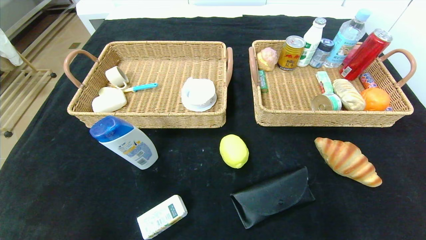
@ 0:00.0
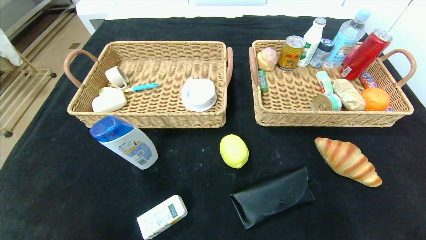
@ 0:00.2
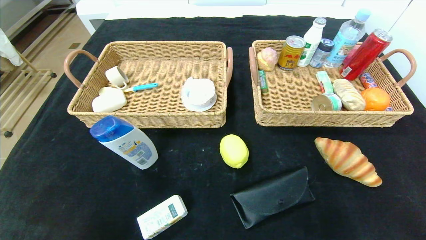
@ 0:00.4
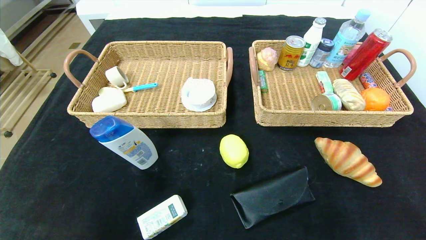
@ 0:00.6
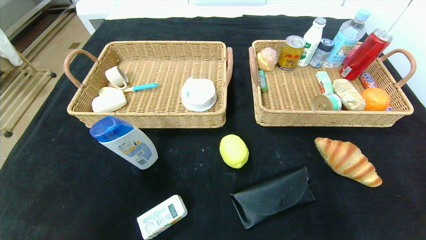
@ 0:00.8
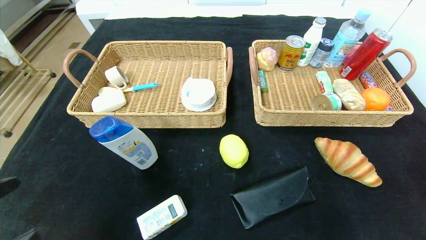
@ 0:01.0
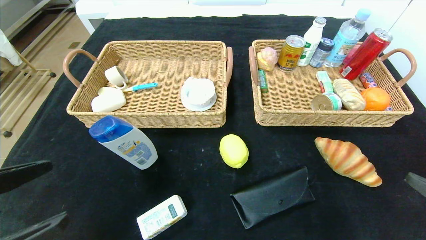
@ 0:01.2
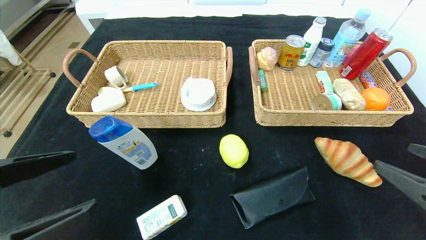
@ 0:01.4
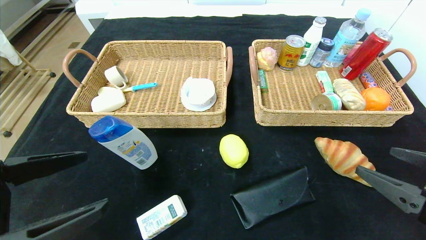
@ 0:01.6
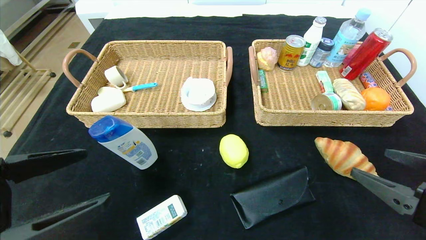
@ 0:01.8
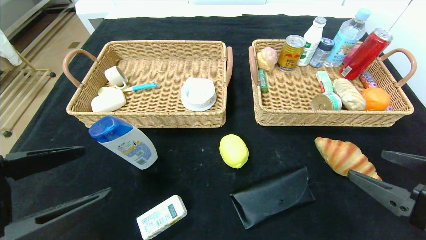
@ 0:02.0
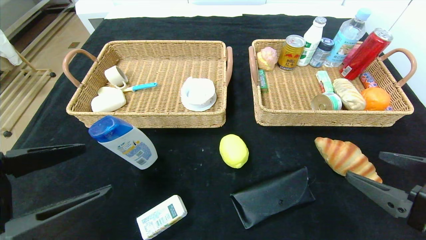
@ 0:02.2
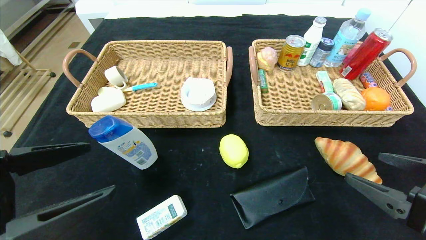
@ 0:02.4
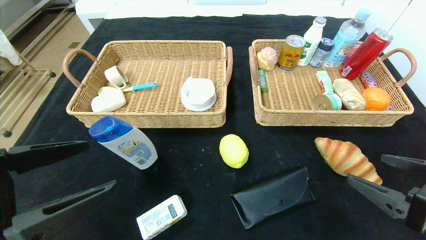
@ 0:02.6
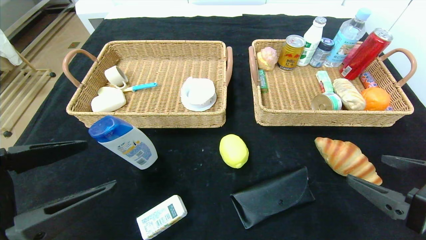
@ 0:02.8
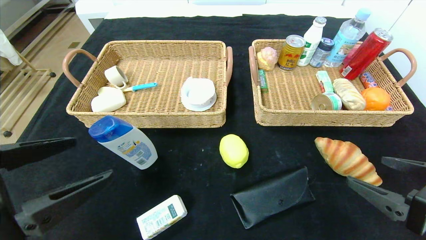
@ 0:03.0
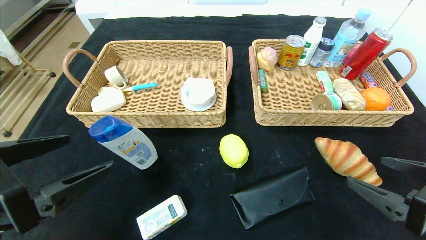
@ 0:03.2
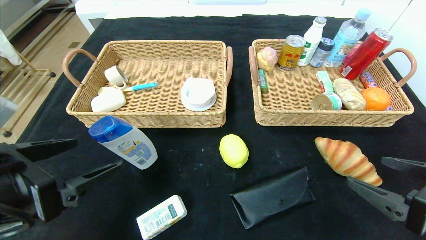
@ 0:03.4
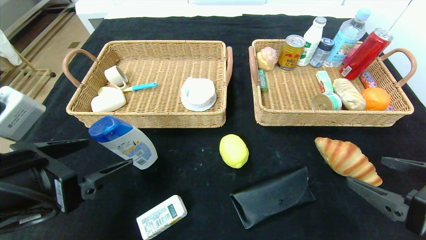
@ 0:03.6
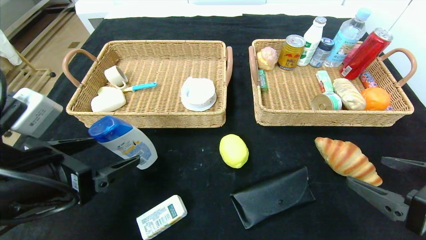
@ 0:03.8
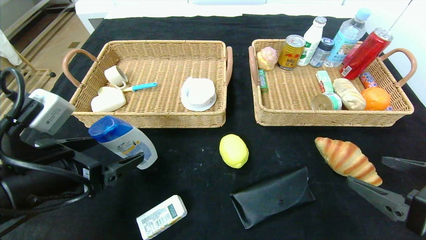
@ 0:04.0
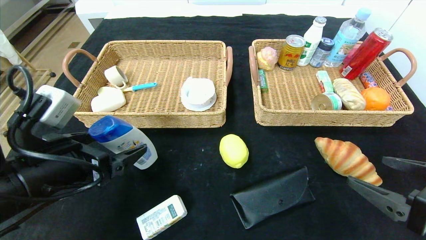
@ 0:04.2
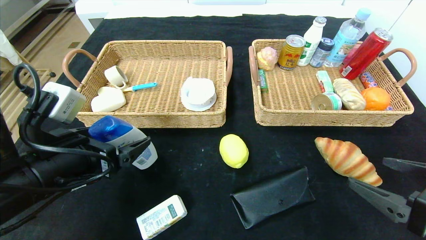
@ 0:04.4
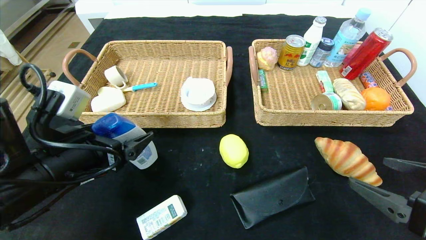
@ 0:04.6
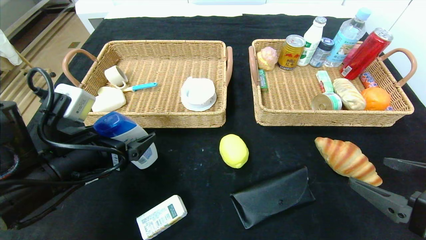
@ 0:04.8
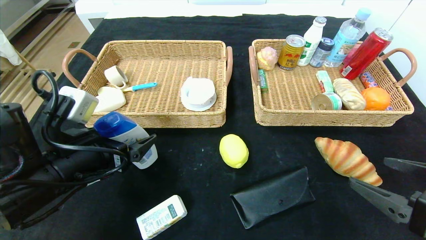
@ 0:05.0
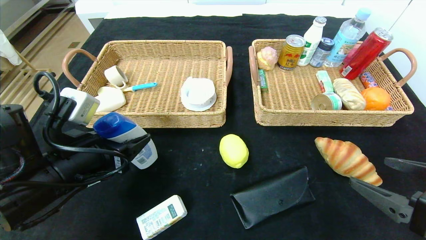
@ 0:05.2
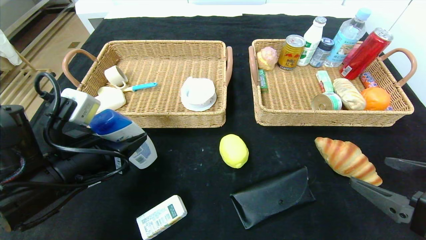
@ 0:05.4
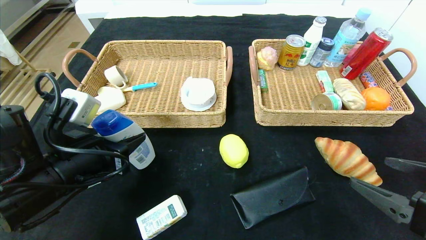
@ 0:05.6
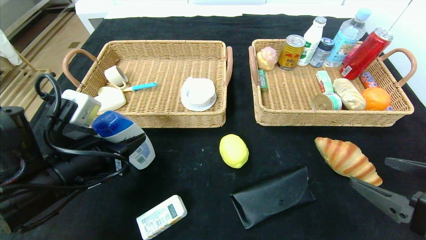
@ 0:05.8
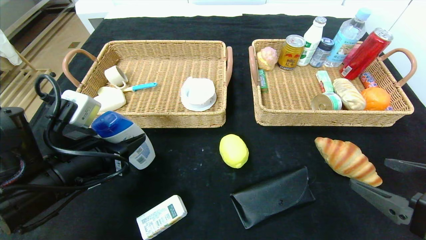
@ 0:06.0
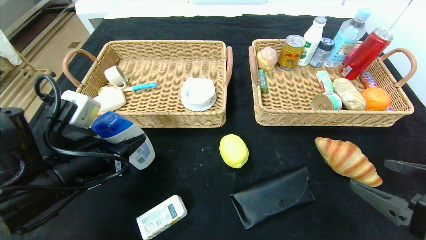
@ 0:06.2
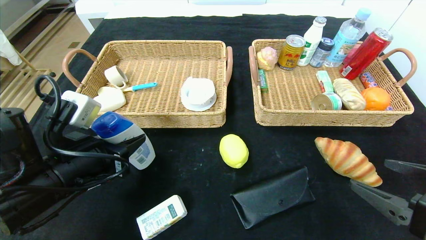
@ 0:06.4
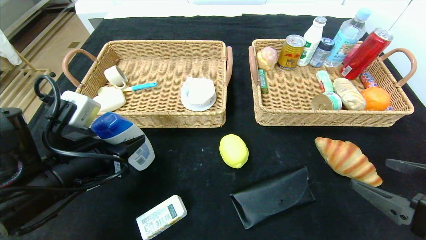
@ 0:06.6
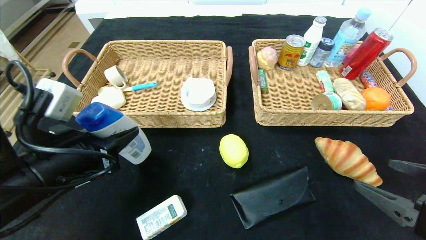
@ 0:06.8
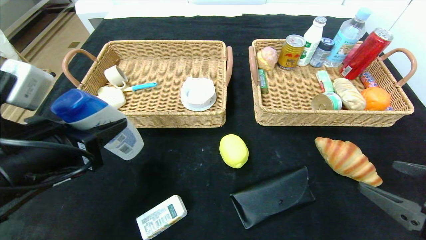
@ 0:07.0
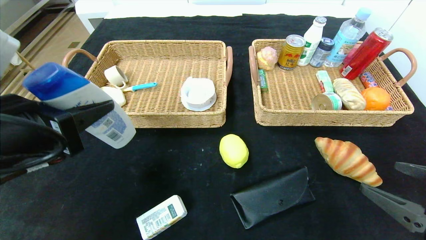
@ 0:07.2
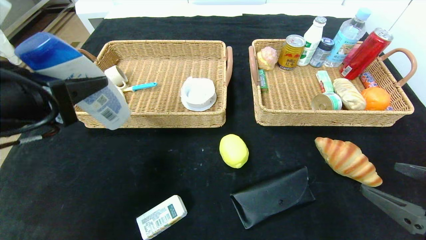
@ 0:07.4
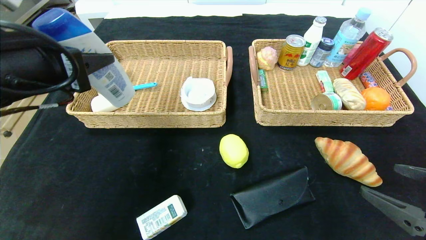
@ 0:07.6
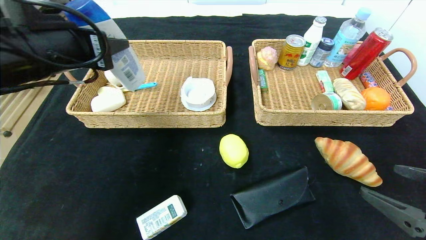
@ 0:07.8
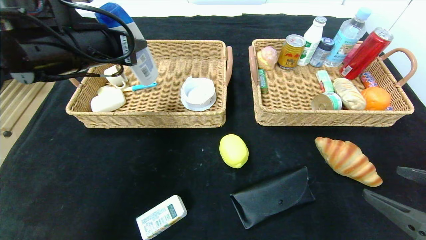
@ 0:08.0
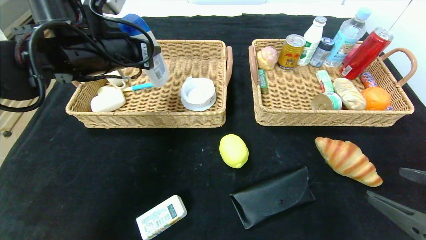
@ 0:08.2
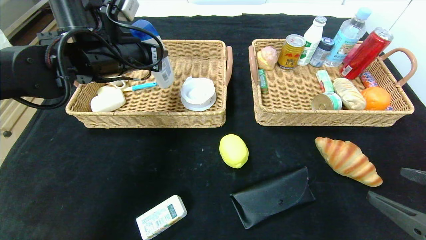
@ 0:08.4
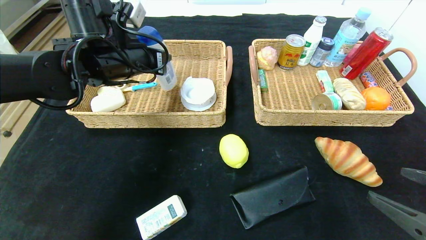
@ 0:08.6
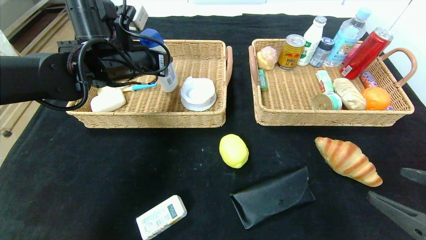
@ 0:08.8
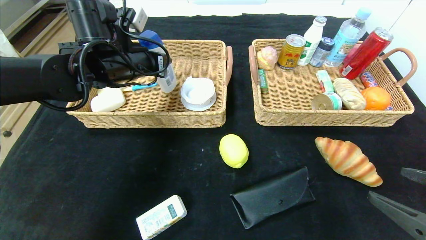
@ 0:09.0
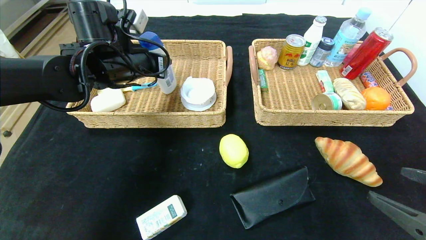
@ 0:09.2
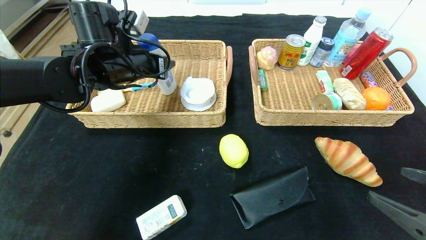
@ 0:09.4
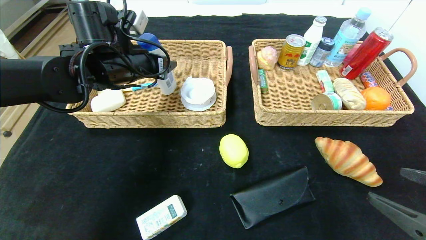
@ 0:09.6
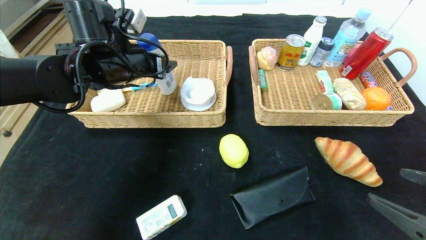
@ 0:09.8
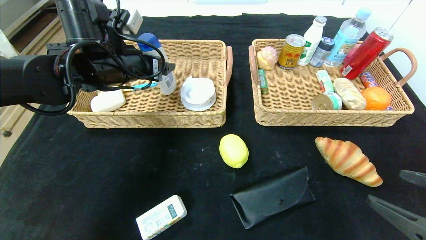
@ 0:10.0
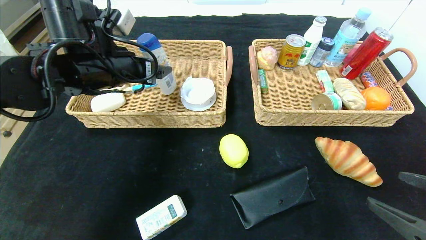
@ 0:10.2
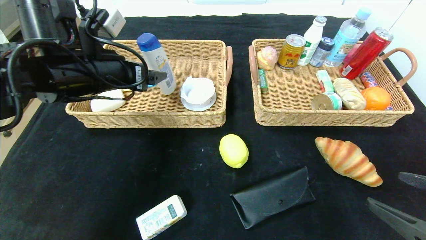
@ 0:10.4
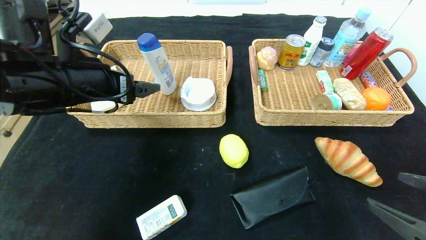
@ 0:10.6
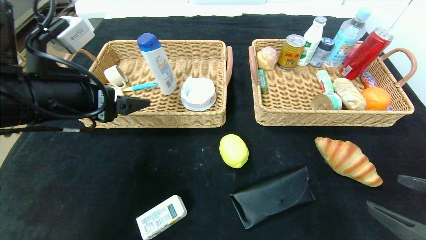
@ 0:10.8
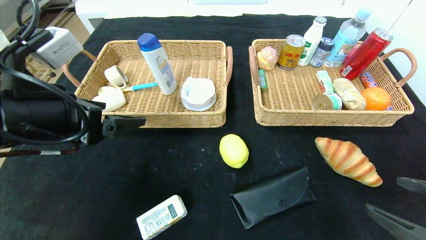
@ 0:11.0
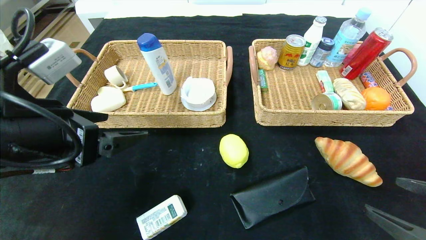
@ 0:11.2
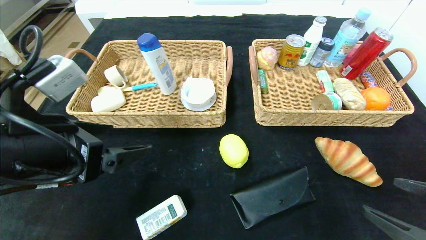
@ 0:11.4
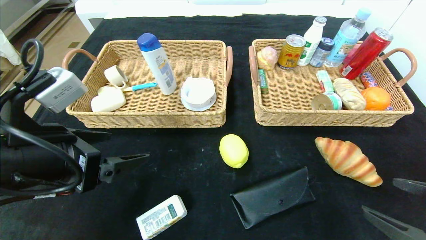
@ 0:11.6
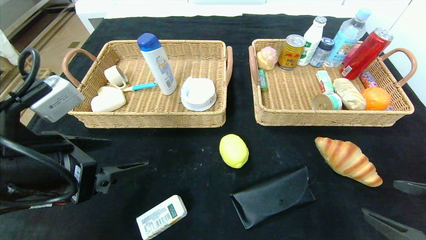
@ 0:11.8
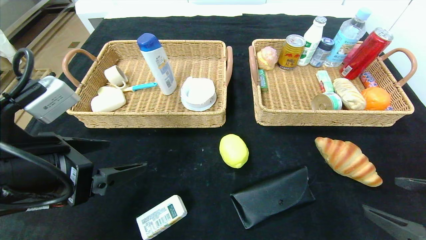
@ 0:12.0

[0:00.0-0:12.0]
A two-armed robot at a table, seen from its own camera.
Step, 0:00.0 to 0:11.4: Pick up the shampoo and put it in the left basket.
0:00.0 to 0:01.6: The left gripper is displaced upward and forward by approximately 20 cm. Meanwhile the right gripper shifts roughly 20 cm upward, forward and to the left.
0:01.6 to 0:03.0: The grippers stay close to where they were, moving slightly.
0:03.0 to 0:04.4: The left gripper is displaced forward by roughly 10 cm.
0:04.4 to 0:06.0: The left gripper closes its fingers.
0:06.0 to 0:07.6: The left gripper shifts some 15 cm upward.
0:07.6 to 0:09.0: The left gripper travels forward by about 15 cm.
0:09.0 to 0:10.4: The left gripper travels backward by some 5 cm, and opens.
0:10.4 to 0:12.0: The left gripper travels backward by roughly 15 cm.

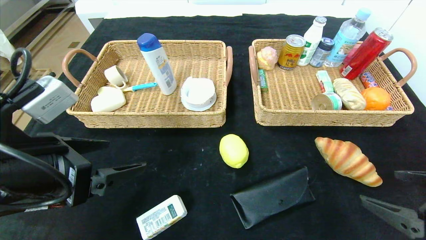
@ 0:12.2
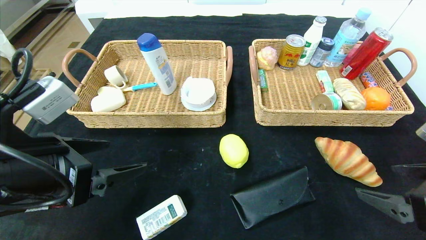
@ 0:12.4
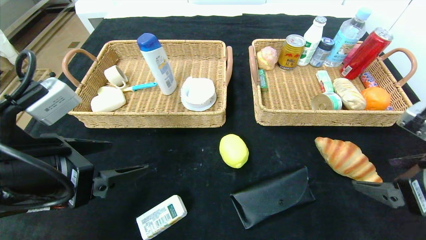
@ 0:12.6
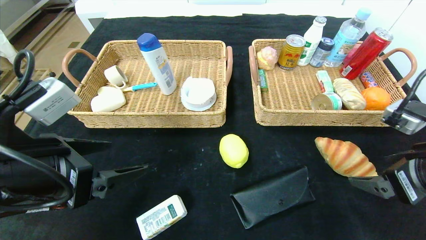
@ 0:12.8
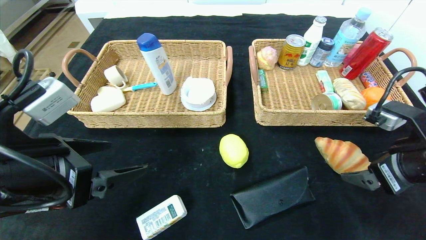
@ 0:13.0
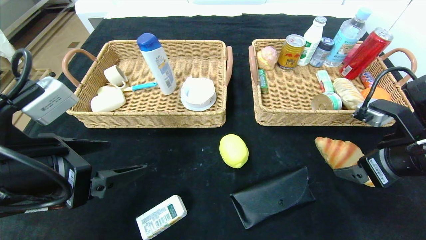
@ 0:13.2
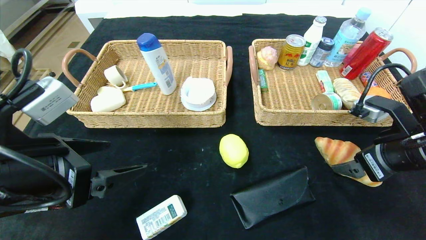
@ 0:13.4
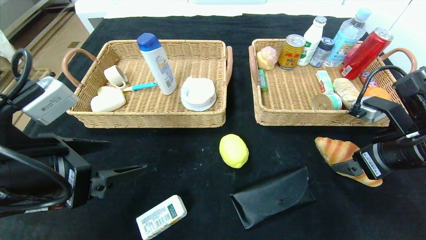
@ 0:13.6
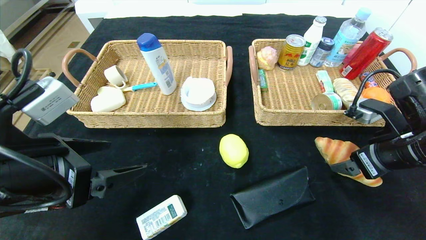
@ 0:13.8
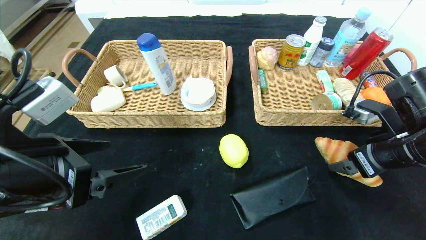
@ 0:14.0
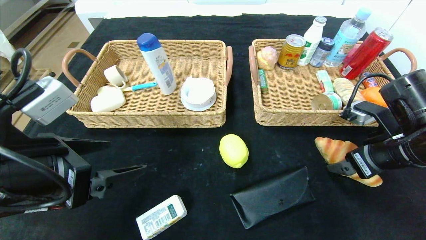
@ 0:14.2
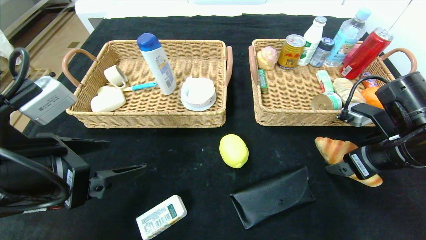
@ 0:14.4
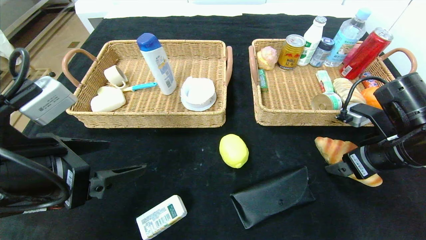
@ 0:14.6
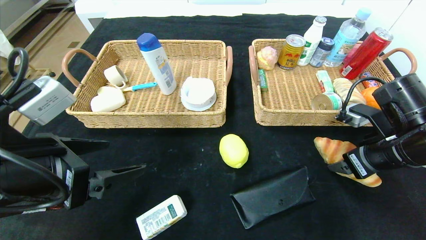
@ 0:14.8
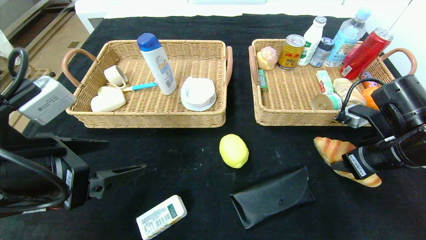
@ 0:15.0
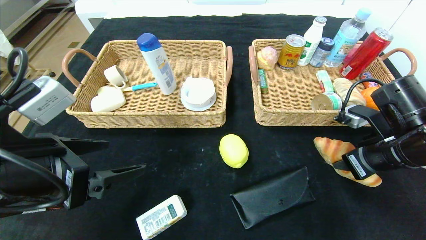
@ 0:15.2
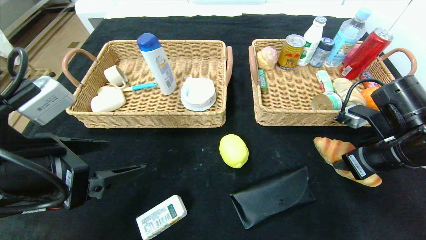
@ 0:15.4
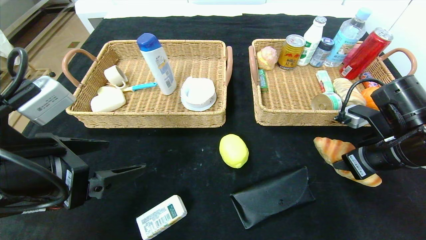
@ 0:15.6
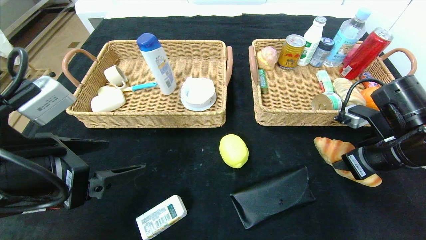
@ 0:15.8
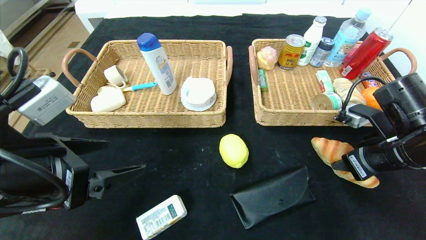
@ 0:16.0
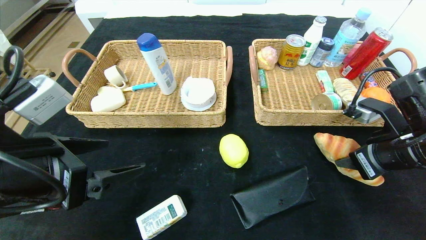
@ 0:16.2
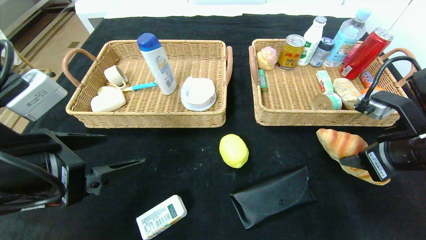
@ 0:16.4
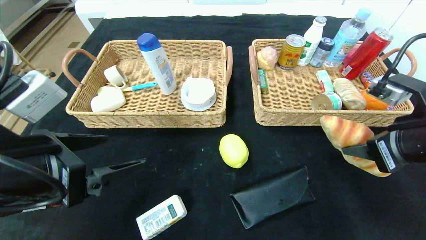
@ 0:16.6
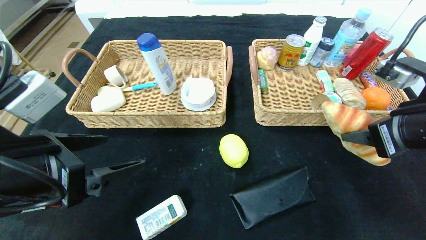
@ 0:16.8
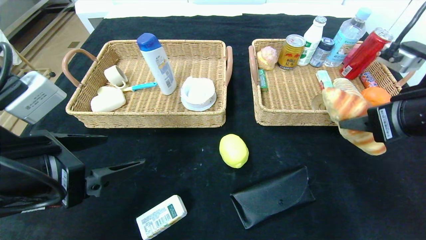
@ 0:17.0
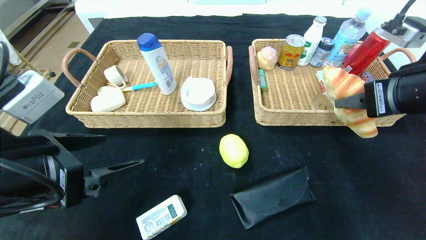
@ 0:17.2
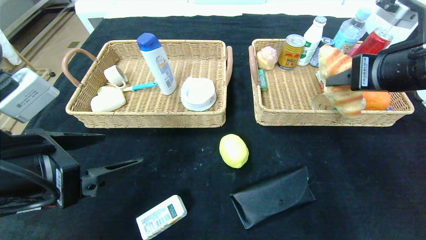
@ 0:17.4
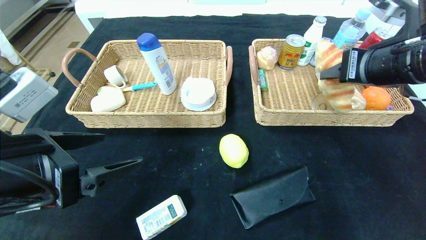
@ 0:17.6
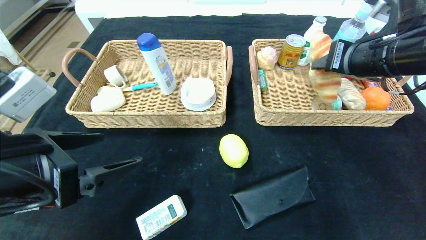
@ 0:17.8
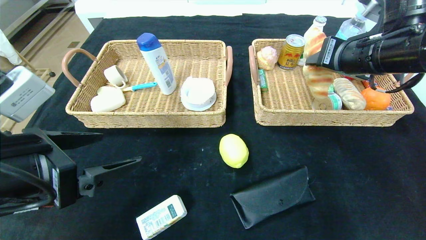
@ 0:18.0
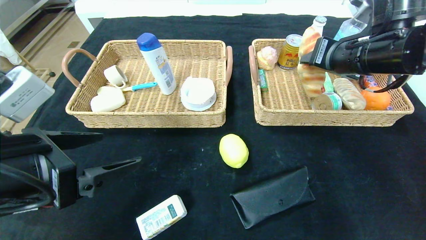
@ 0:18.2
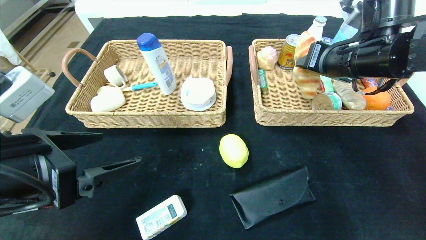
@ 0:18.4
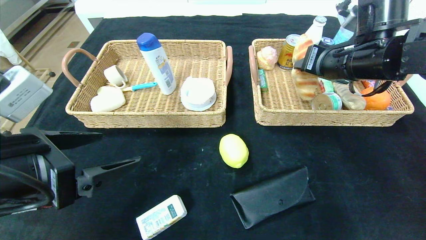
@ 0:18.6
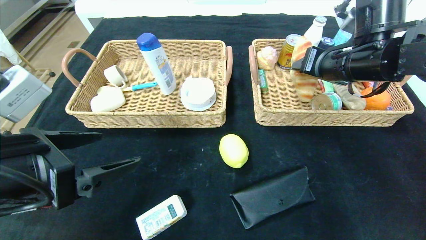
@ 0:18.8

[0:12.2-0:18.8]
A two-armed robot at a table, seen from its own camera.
0:12.2 to 0:13.8: The right gripper is displaced forward by some 15 cm.
0:13.8 to 0:15.4: The right gripper closes.
0:15.4 to 0:17.2: The right gripper goes about 10 cm upward.
0:17.2 to 0:18.8: The right gripper heads forward, covering approximately 10 cm.
